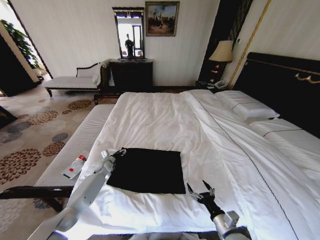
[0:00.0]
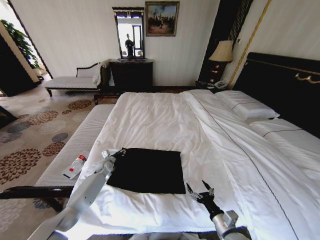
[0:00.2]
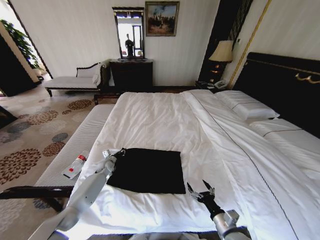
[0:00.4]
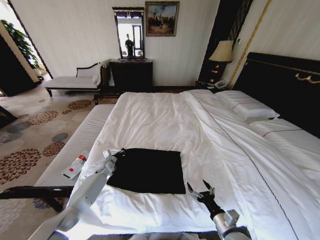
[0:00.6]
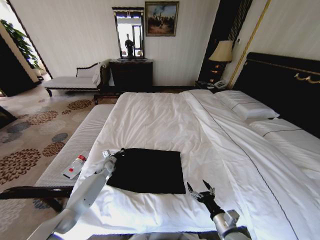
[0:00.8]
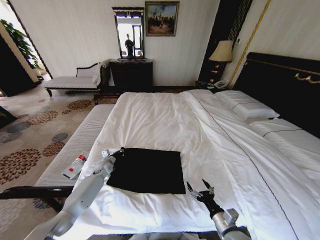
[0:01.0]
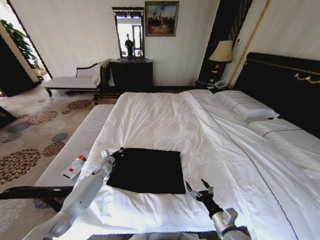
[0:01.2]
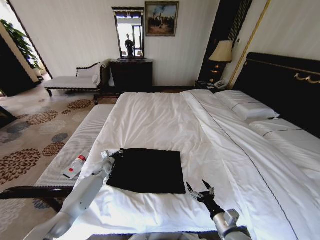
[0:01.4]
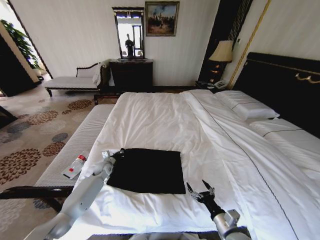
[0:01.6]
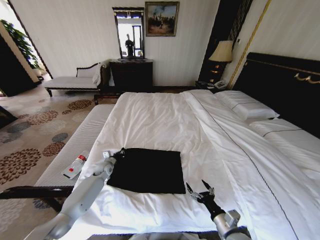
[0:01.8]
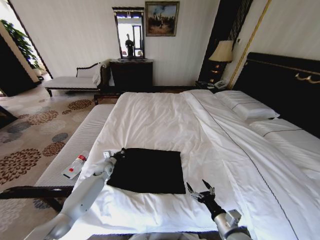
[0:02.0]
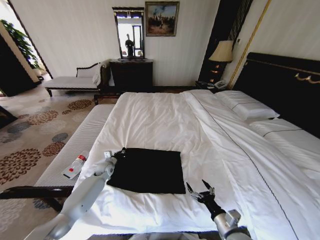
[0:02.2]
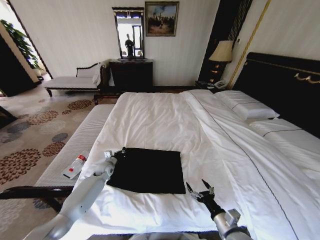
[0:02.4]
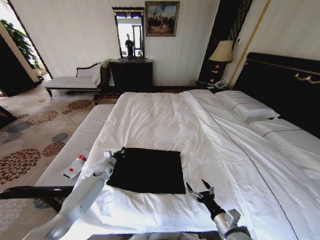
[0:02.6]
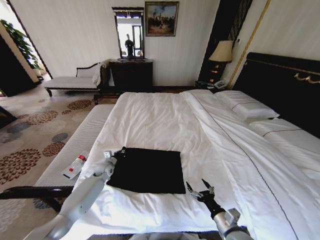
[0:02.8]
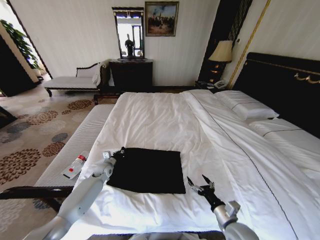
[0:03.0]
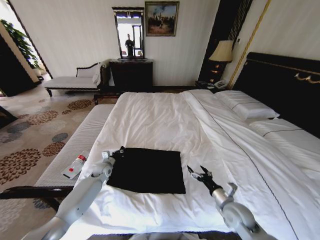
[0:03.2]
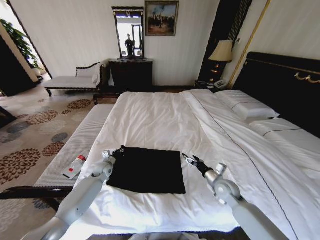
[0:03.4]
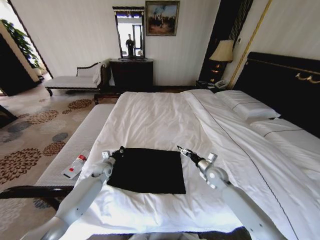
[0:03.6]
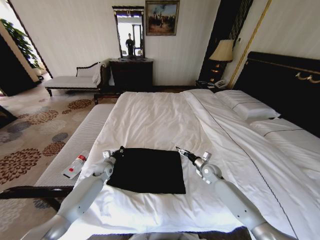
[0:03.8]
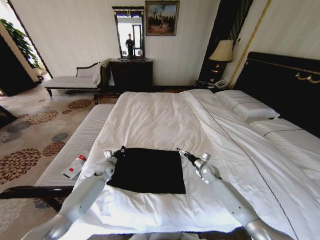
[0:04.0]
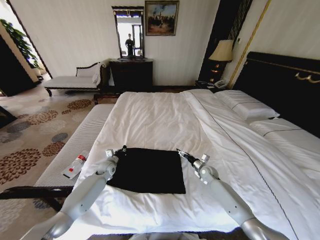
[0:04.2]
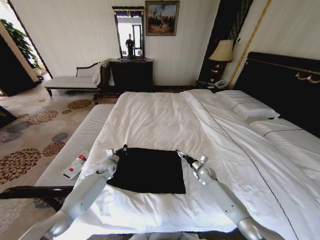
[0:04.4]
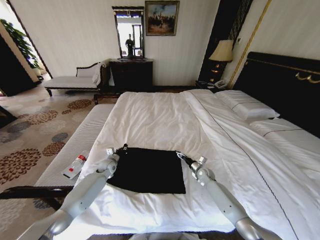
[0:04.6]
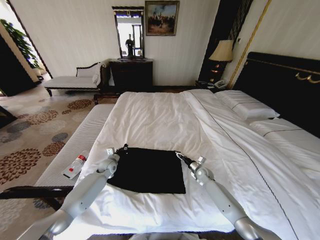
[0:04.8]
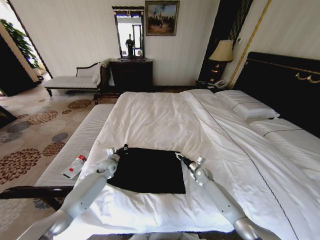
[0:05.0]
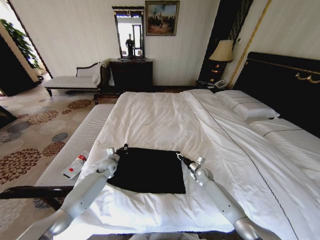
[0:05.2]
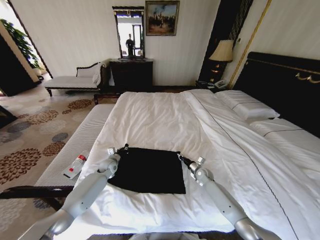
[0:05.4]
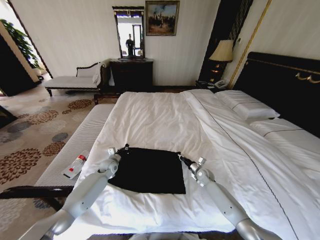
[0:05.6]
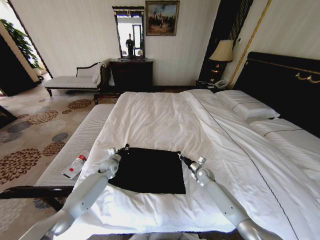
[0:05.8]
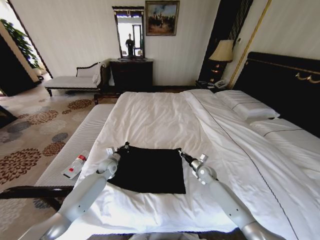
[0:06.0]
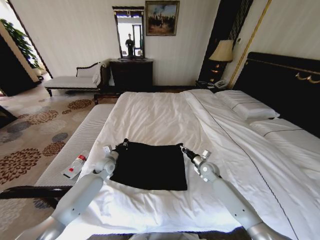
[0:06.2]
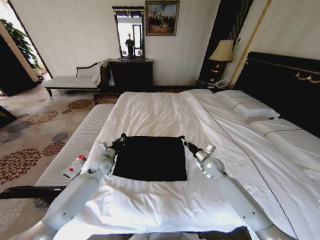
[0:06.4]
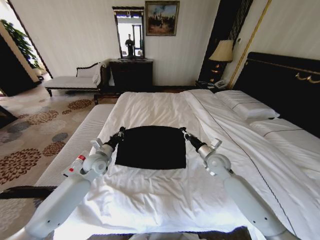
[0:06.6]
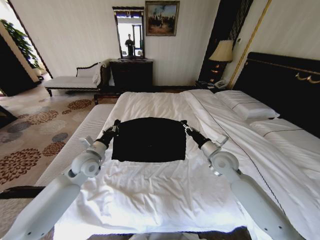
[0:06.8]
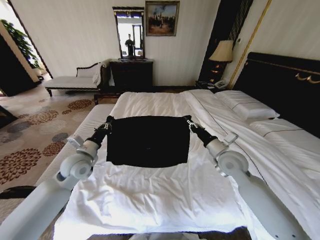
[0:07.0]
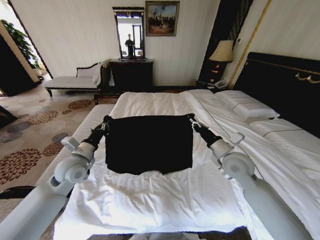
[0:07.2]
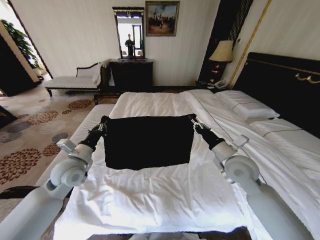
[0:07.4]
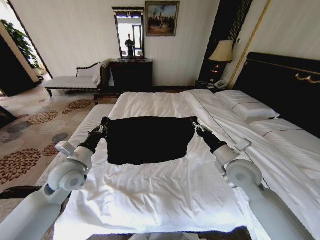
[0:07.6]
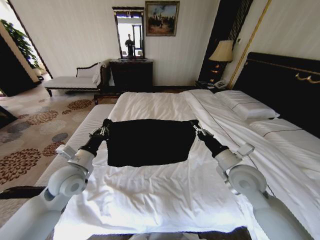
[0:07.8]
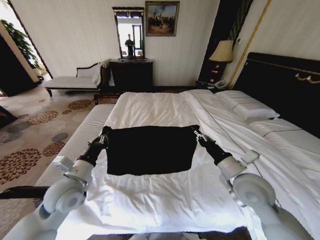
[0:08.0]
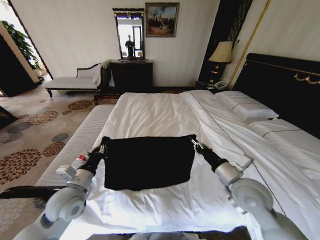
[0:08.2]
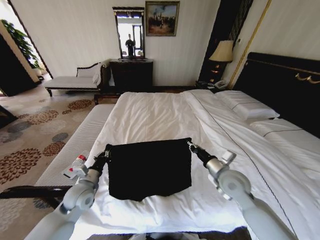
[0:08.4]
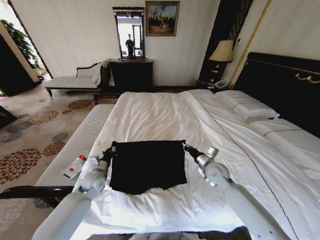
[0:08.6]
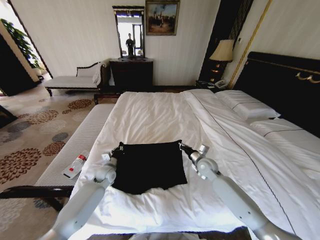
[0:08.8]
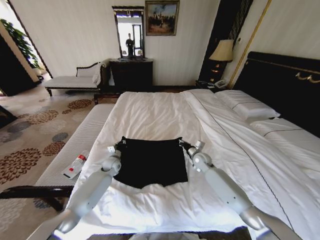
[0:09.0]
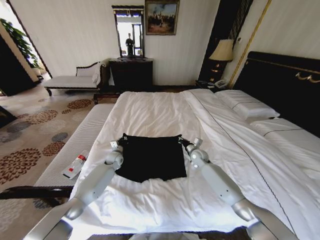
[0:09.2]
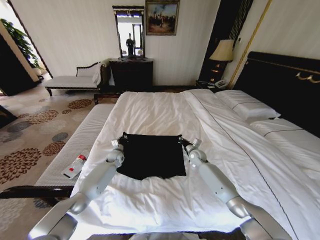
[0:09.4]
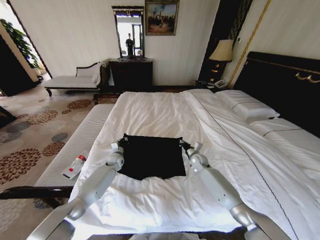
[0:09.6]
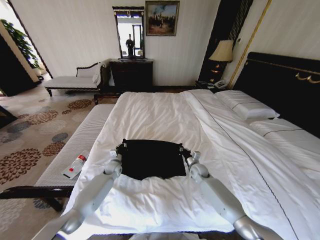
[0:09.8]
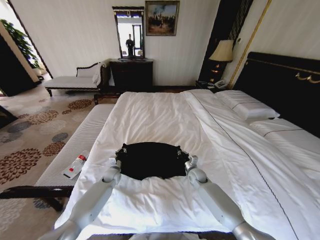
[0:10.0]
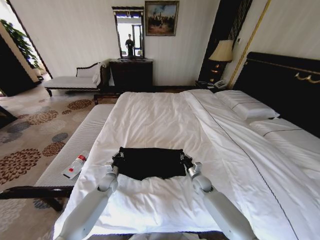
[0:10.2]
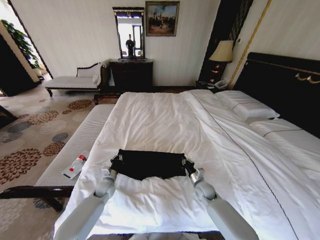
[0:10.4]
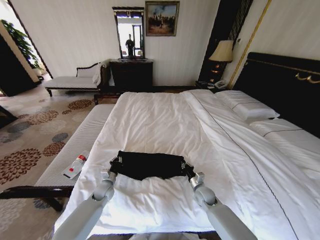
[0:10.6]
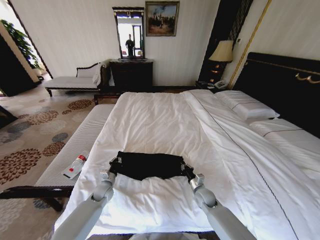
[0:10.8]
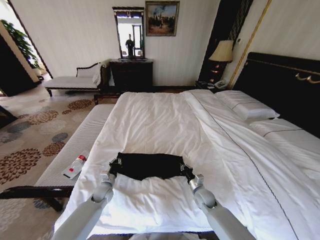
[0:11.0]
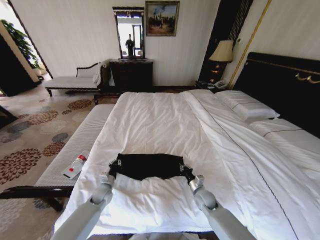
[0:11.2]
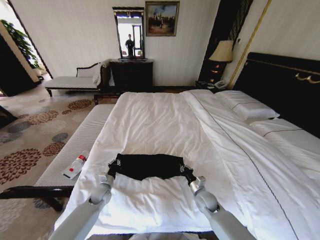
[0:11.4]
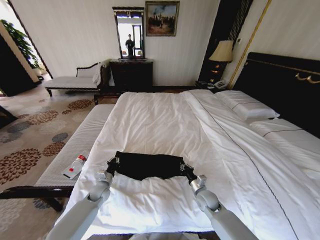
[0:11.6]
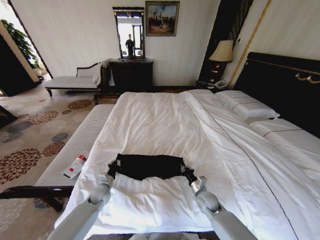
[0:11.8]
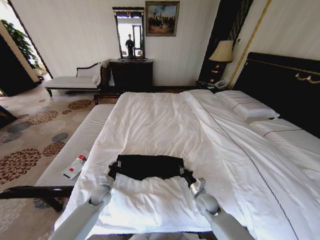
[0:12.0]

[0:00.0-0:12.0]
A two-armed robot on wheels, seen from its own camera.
Task of the whole recording: Fold the clothes on the bed.
0:00.0 to 0:01.6: The left gripper closes up.
0:01.6 to 0:03.0: The grippers move only a little.
0:03.0 to 0:04.4: The right gripper heads forward, covering approximately 25 cm.
0:04.4 to 0:06.0: The right gripper closes its fingers.
0:06.0 to 0:07.6: Both grippers travel together upward and backward, some 25 cm.
0:07.6 to 0:09.0: The grippers both shift downward and forward by approximately 25 cm.
0:09.0 to 0:10.4: The two grippers go roughly 15 cm backward and downward.
0:10.4 to 0:12.0: The right gripper goes some 5 cm backward.

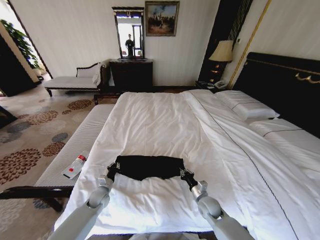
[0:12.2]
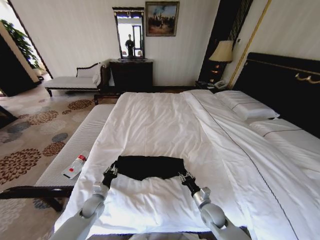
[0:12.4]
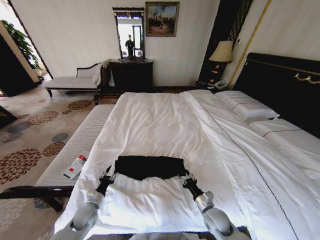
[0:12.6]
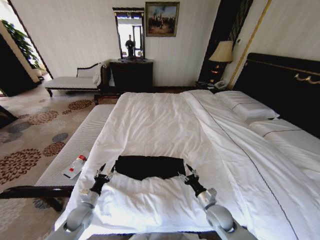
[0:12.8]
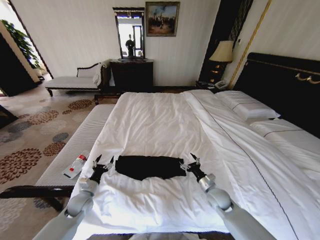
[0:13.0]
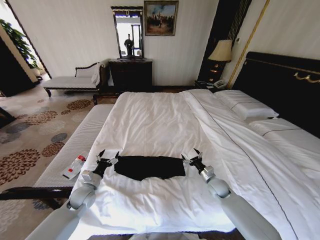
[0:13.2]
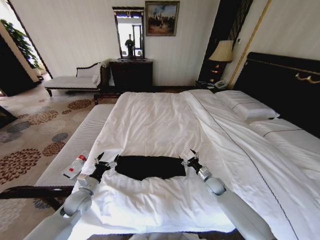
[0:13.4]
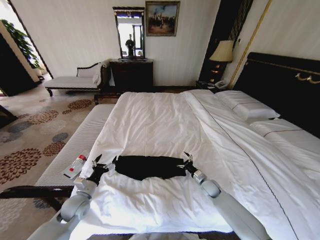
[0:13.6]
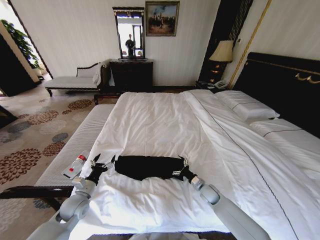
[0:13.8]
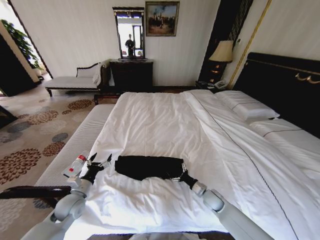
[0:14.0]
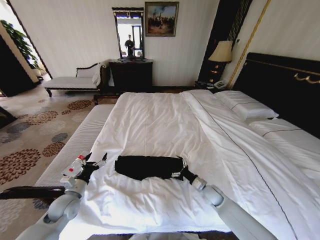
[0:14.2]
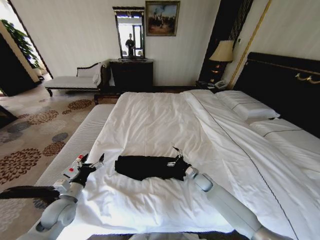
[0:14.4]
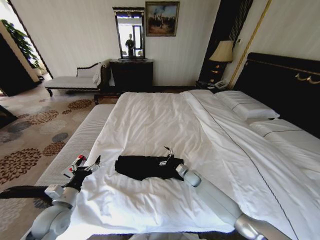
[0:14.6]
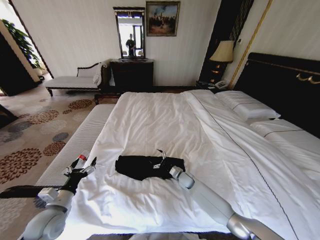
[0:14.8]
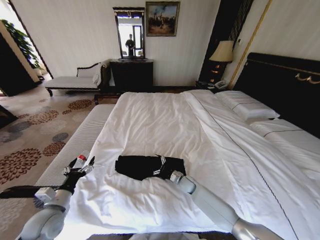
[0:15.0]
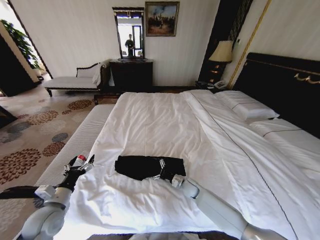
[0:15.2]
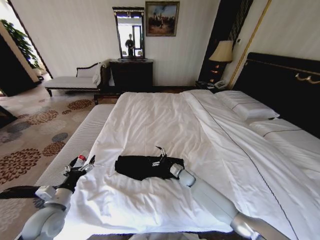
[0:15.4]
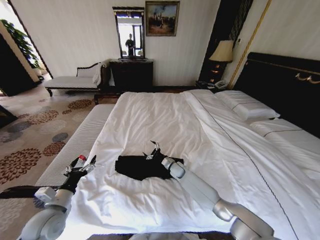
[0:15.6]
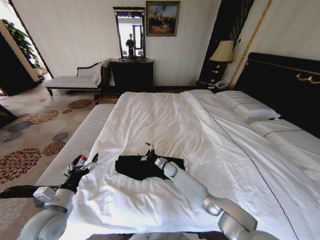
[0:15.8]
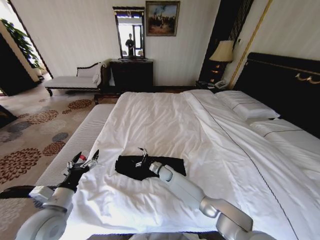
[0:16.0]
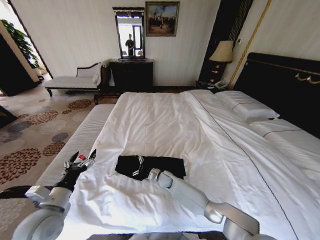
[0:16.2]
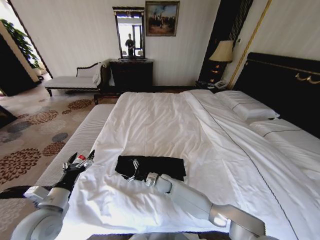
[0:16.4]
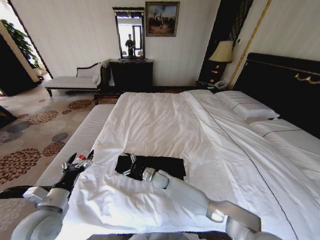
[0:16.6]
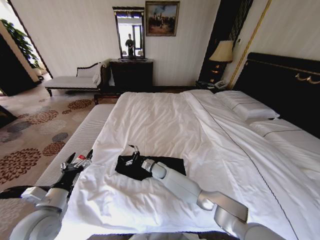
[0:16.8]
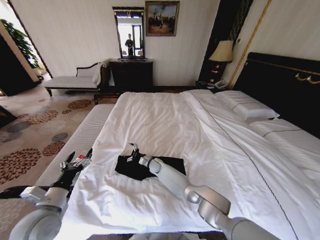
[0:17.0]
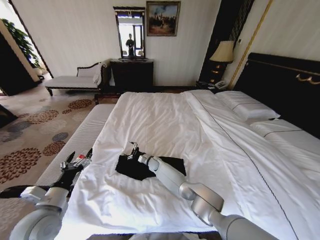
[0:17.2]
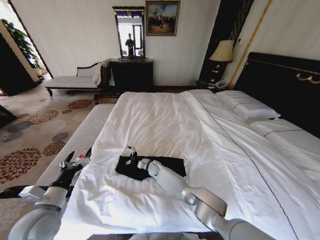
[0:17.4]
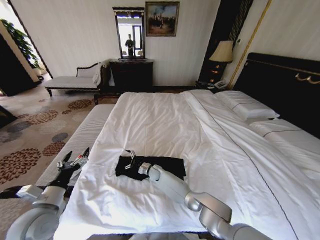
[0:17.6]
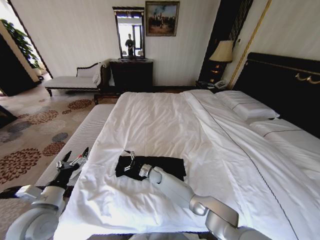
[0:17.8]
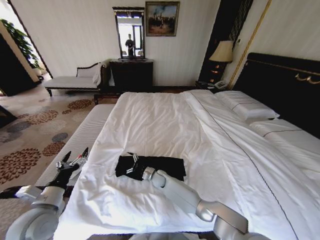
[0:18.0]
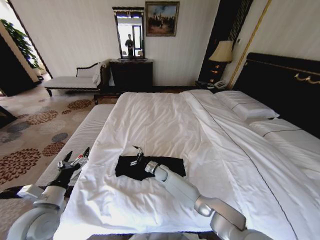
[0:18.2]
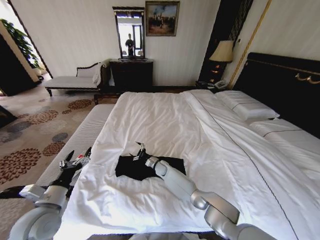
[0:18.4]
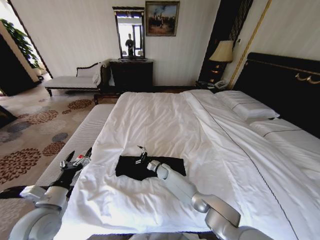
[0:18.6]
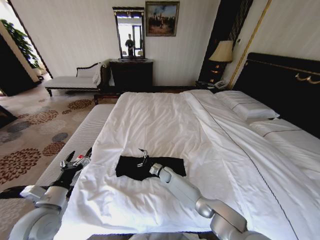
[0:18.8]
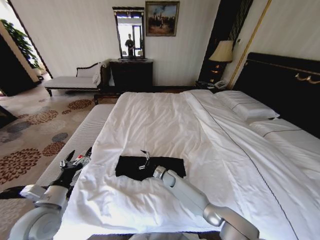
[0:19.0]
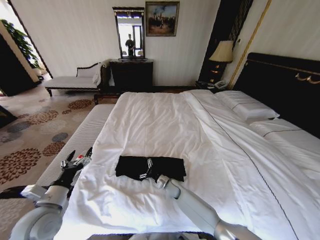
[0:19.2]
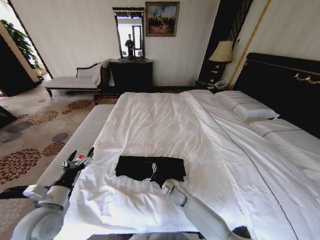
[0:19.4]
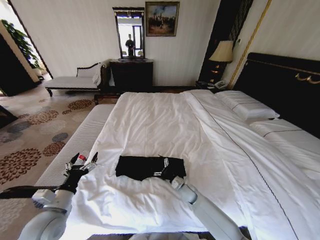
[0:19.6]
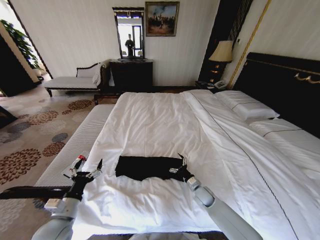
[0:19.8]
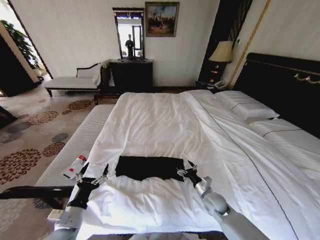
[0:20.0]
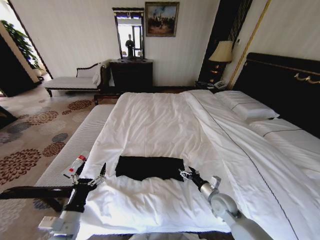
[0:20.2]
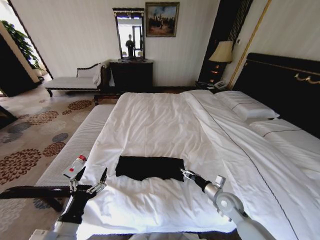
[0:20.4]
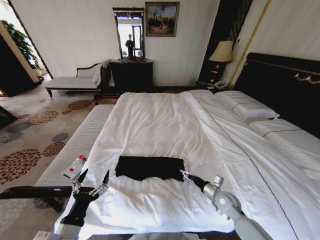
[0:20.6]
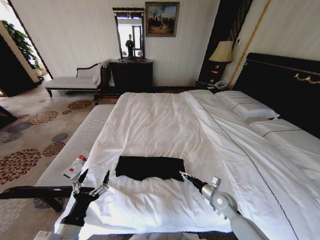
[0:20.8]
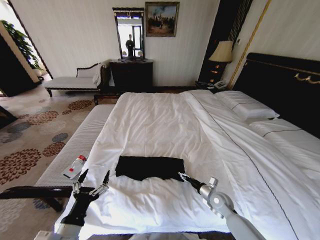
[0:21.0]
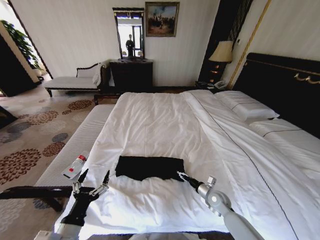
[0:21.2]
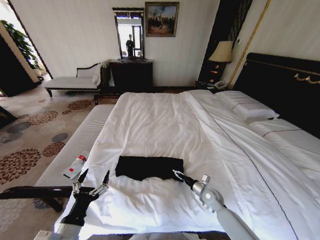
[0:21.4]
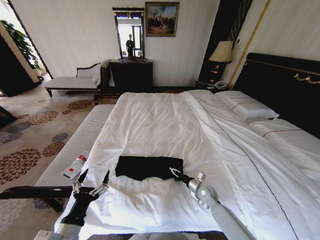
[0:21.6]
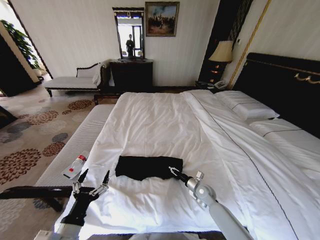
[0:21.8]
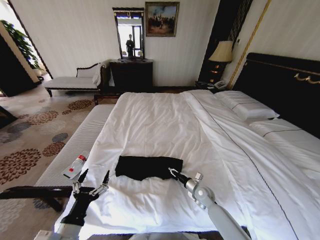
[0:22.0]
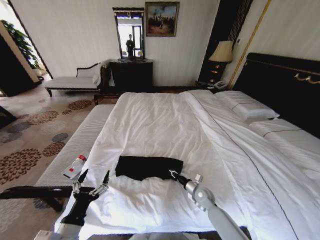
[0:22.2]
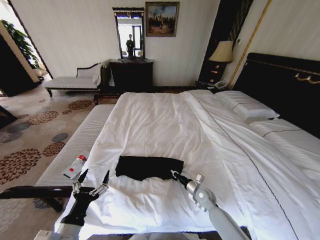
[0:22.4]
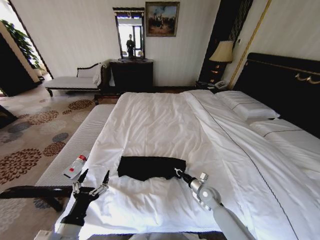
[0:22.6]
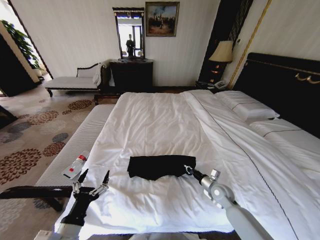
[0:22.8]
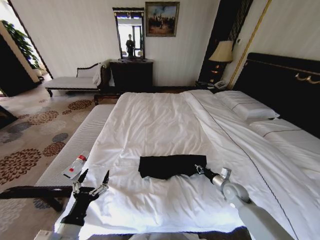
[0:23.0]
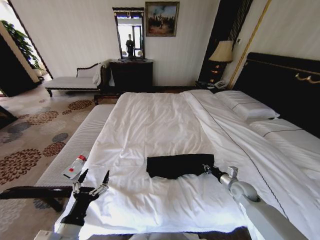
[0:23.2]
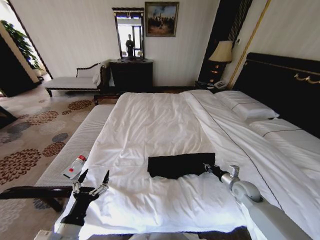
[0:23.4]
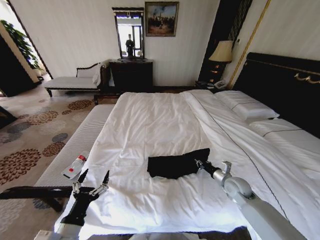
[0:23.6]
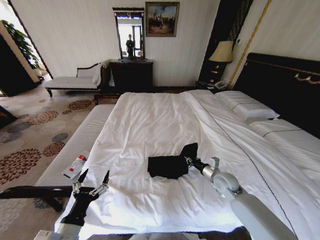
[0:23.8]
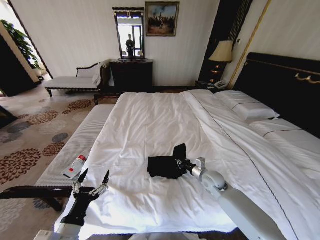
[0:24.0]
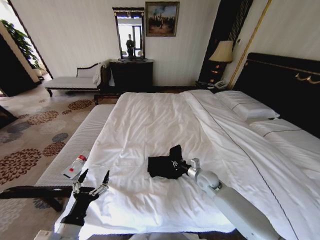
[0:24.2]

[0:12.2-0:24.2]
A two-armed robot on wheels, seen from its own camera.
Task of the whole recording: Fold the clothes on the bed.
0:12.2 to 0:13.8: The right gripper moves forward, approximately 5 cm, and opens up. Meanwhile the left gripper goes about 10 cm upward and backward, and opens up.
0:13.8 to 0:15.2: The left gripper heads upward and backward, covering roughly 10 cm, while the right gripper travels to the left by approximately 10 cm, and moves some 10 cm forward and comes back.
0:15.2 to 0:16.6: The right gripper travels to the left by about 15 cm; the left gripper shifts by about 5 cm.
0:16.6 to 0:18.2: The right gripper is displaced forward by approximately 5 cm.
0:18.2 to 0:19.8: The left gripper travels downward by about 5 cm; the right gripper is displaced to the right and backward by about 25 cm.
0:19.8 to 0:21.2: The right gripper travels to the right by roughly 5 cm, and moves roughly 10 cm upward and comes back; the left gripper is displaced backward and to the right by approximately 10 cm.
0:21.2 to 0:22.6: The right gripper closes its fingers.
0:22.6 to 0:24.2: The right gripper goes approximately 5 cm upward, and moves roughly 15 cm to the right and comes back.
